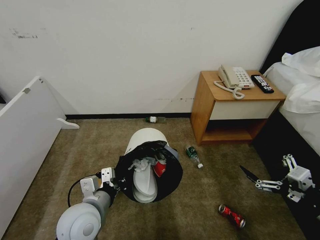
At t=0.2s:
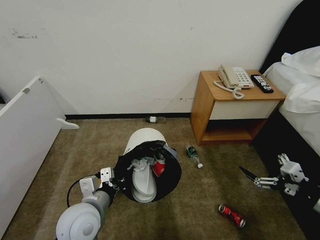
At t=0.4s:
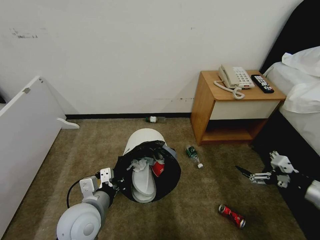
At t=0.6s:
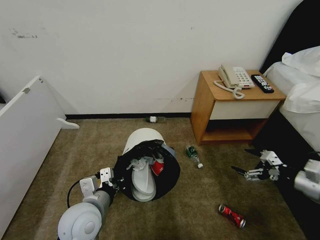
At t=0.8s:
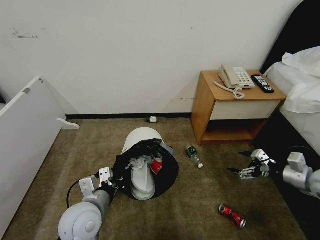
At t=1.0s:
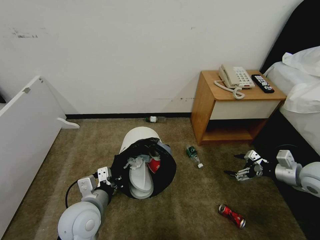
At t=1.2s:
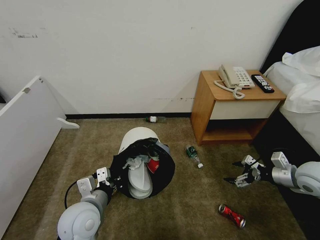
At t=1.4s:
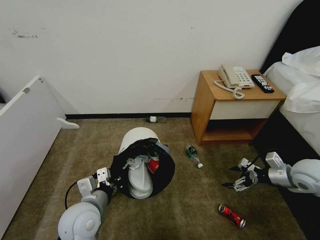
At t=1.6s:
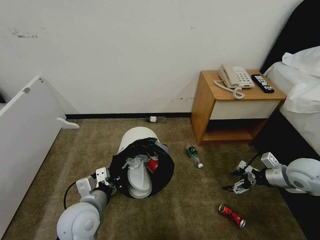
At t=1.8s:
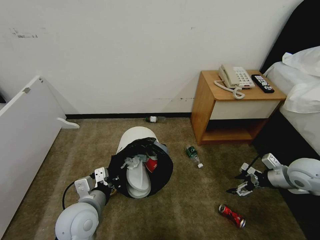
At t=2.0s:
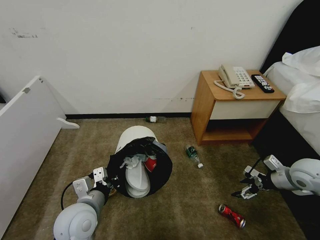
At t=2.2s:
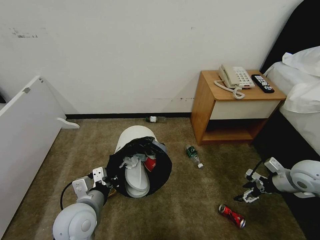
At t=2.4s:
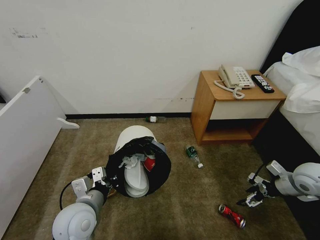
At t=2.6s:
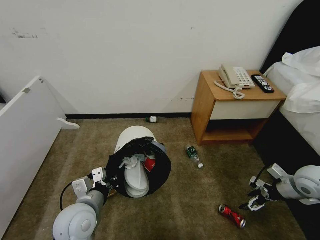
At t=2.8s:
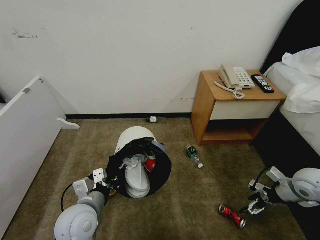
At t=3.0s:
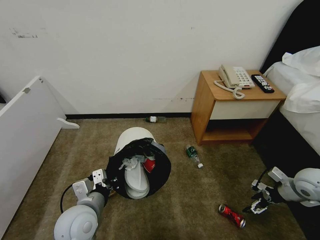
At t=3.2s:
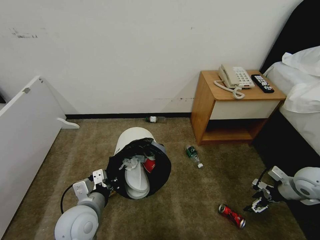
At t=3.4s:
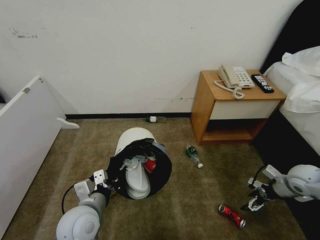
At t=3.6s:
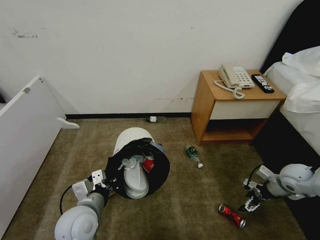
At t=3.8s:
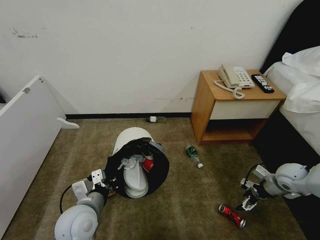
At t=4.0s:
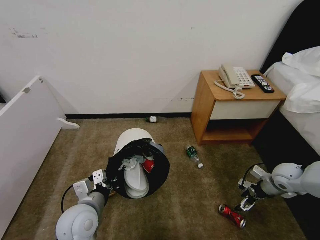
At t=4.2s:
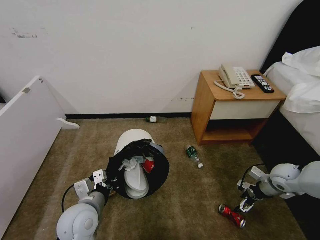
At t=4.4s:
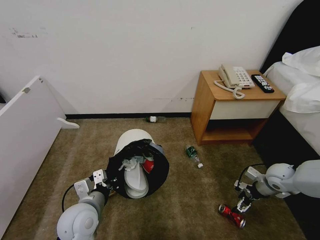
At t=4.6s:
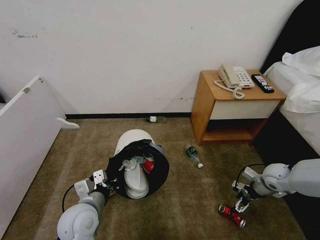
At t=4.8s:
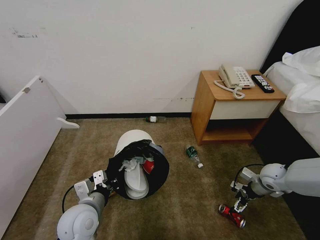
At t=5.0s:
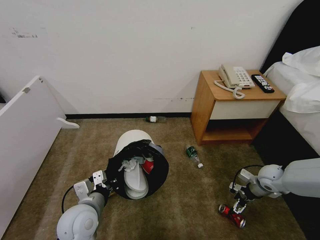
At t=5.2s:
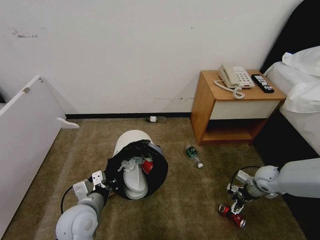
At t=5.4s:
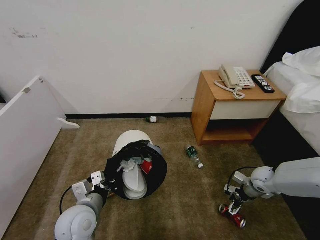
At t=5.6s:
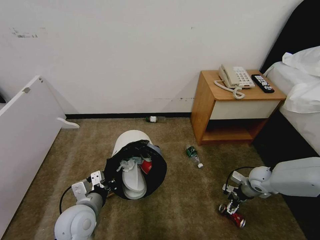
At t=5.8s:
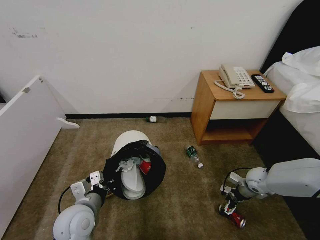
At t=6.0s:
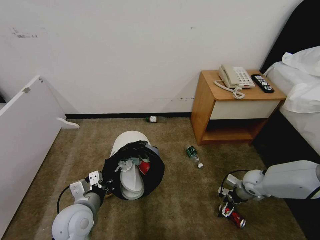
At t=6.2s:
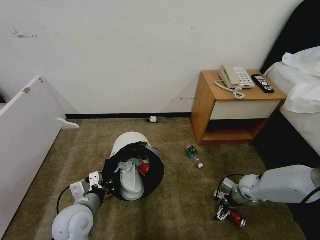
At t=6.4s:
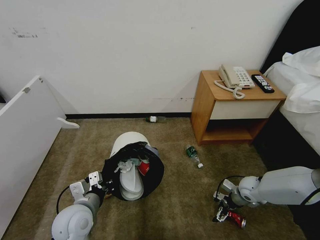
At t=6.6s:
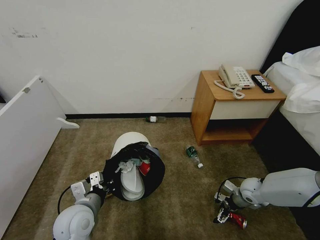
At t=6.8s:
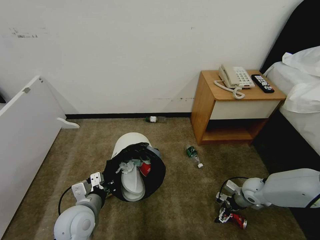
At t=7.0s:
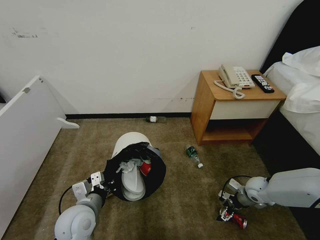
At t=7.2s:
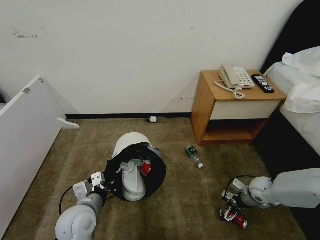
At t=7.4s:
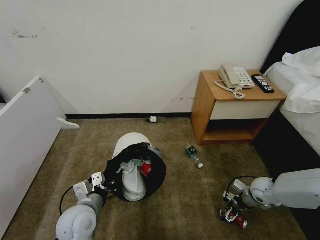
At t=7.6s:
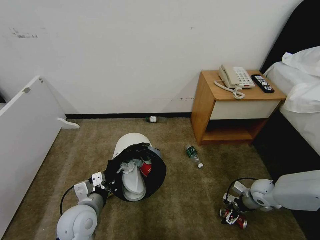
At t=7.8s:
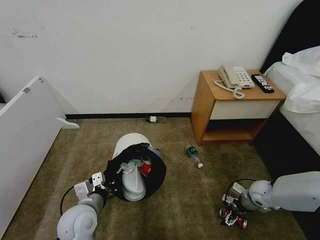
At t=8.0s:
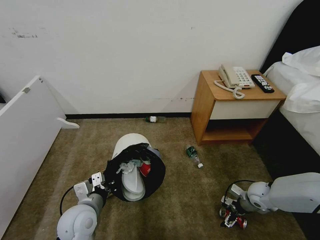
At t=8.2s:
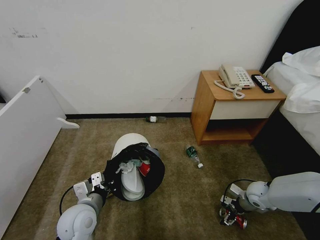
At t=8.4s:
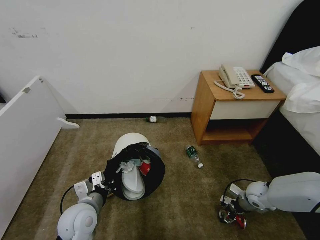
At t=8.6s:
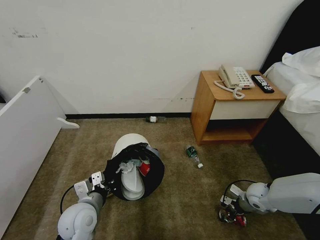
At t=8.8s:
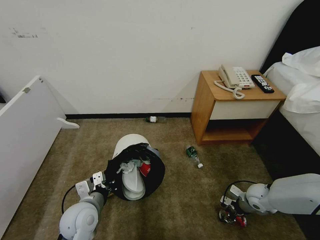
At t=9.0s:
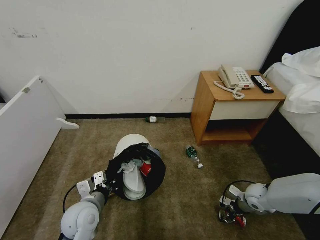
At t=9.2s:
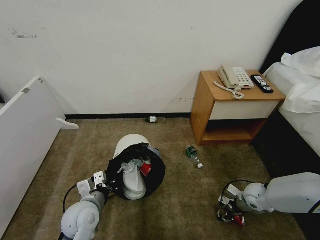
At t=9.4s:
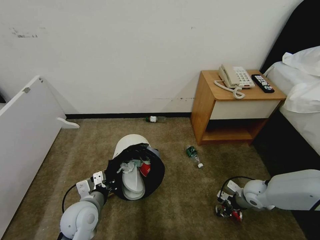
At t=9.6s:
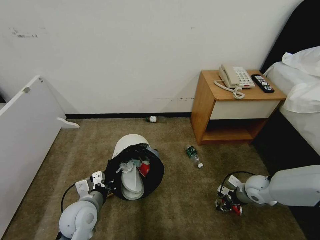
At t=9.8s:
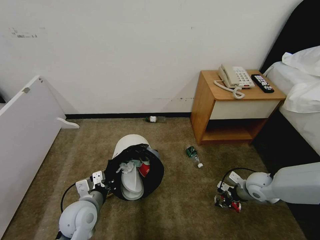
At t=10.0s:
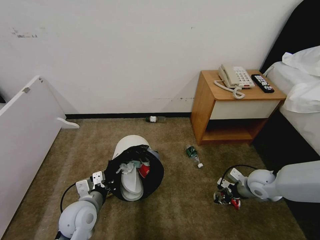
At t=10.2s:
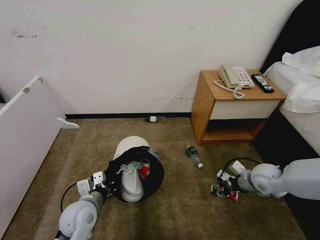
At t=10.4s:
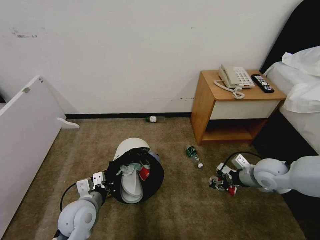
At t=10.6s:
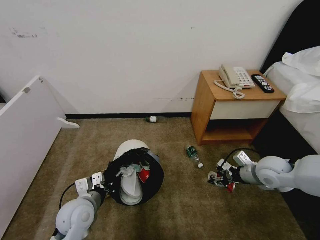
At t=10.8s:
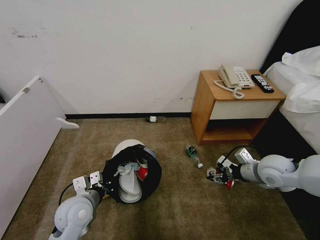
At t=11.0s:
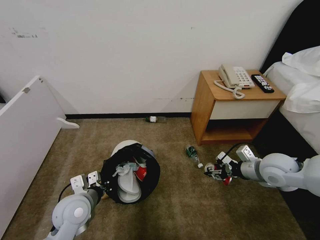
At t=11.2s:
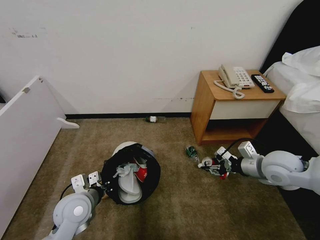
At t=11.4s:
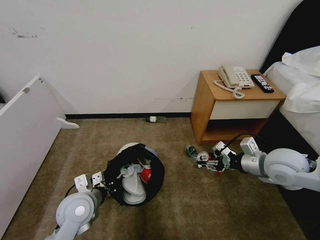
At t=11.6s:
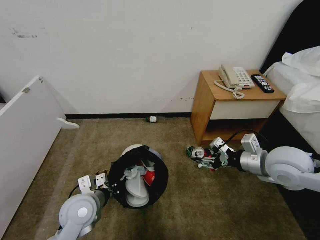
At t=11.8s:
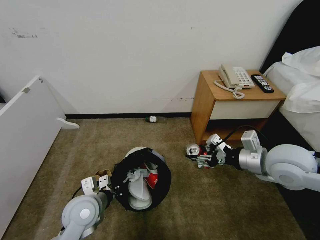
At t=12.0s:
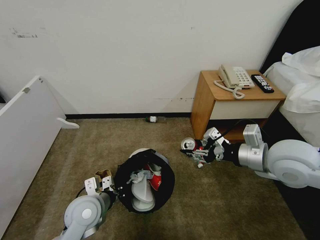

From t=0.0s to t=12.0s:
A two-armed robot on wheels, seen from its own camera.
Task of the whole recording: Pick up the trash bin and place the garbage on the floor into it.
From t=0.0s to t=1.6s: The right gripper shifts some 20 cm forward.
From t=1.6s to t=3.0s: The right gripper moves about 5 cm.
From t=3.0s to t=4.4s: The right gripper heads downward, covering about 5 cm.
From t=4.4s to t=6.0s: The right gripper moves downward and to the left, approximately 10 cm.
From t=6.0s to t=7.6s: The grippers stay close to where they were, moving slightly.
From t=7.6s to t=9.0s: The right gripper closes up.
From t=9.0s to t=10.4s: The right gripper heads upward, covering about 15 cm.
From t=10.4s to t=12.0s: The right gripper shifts roughly 20 cm upward and to the left.

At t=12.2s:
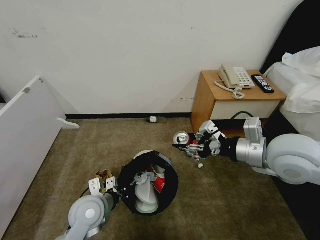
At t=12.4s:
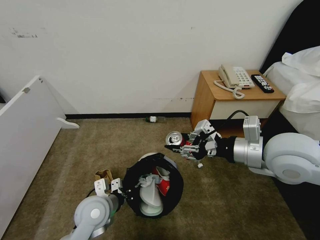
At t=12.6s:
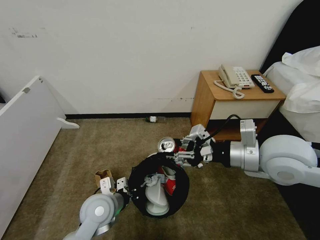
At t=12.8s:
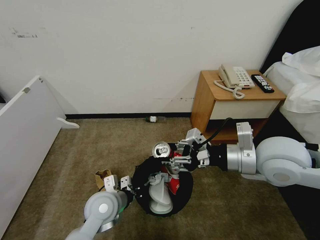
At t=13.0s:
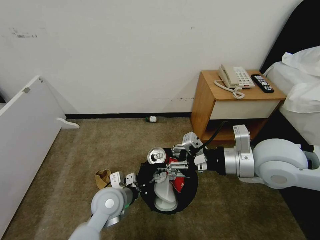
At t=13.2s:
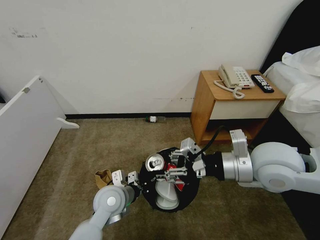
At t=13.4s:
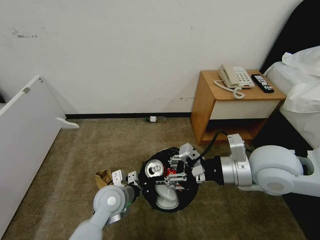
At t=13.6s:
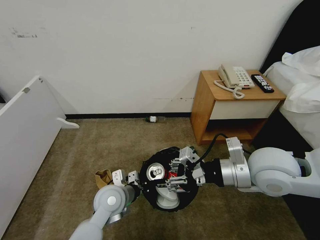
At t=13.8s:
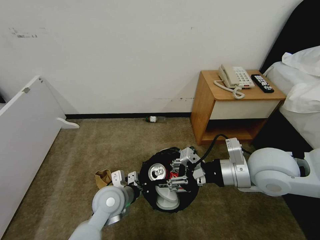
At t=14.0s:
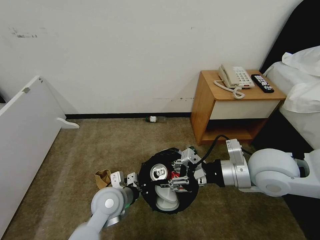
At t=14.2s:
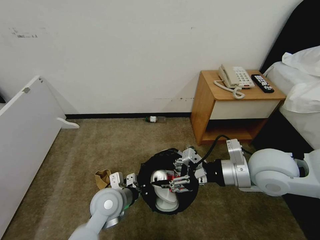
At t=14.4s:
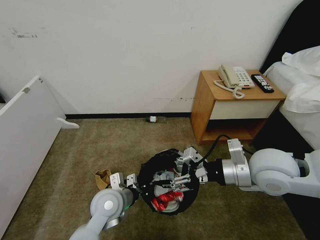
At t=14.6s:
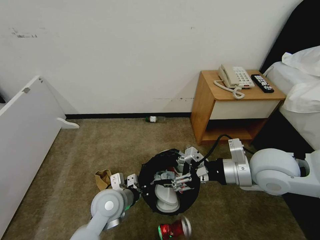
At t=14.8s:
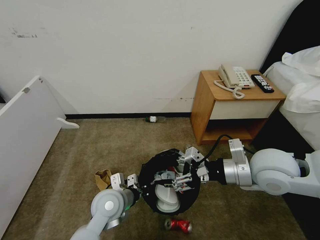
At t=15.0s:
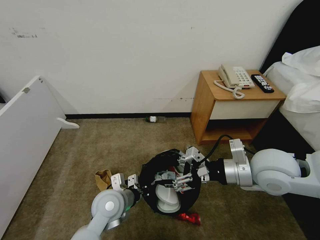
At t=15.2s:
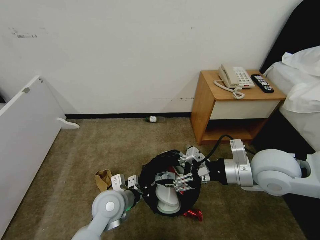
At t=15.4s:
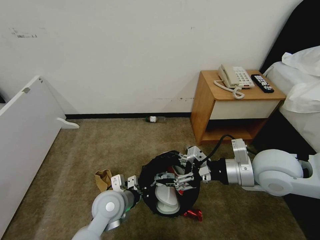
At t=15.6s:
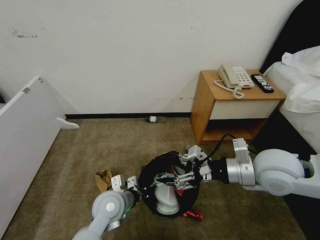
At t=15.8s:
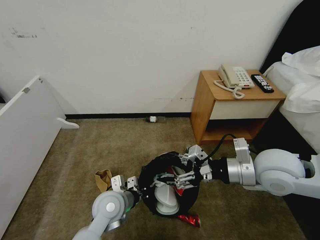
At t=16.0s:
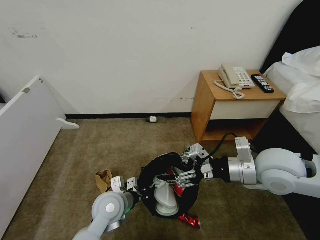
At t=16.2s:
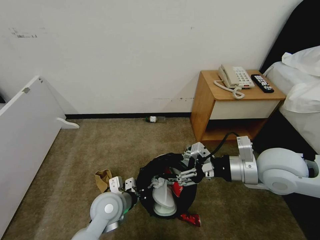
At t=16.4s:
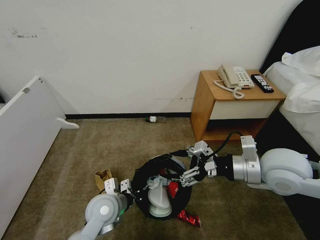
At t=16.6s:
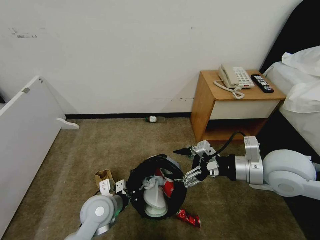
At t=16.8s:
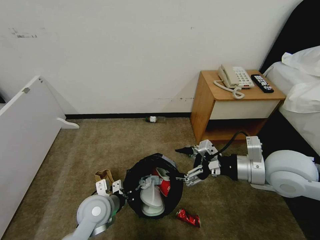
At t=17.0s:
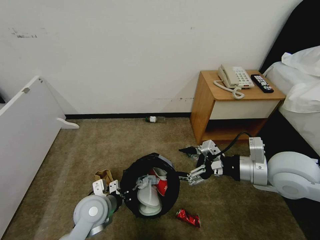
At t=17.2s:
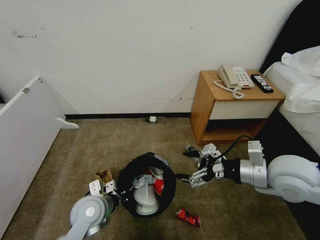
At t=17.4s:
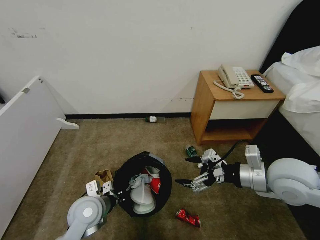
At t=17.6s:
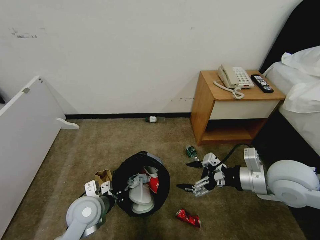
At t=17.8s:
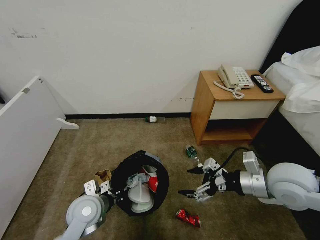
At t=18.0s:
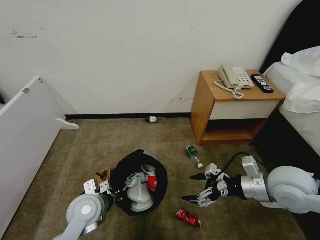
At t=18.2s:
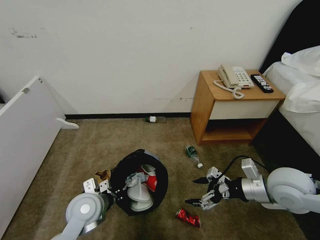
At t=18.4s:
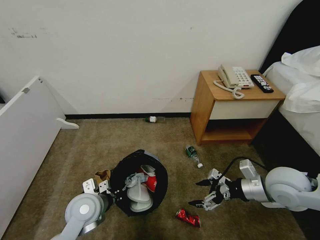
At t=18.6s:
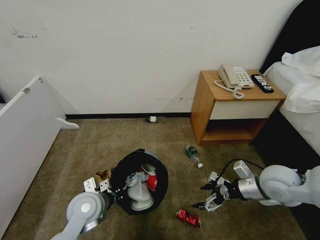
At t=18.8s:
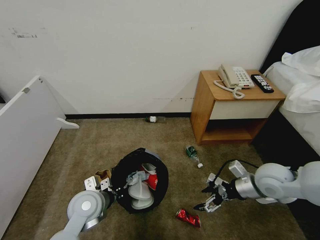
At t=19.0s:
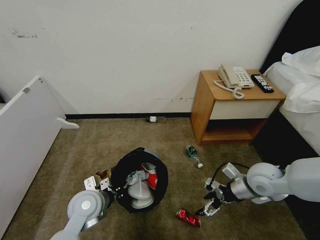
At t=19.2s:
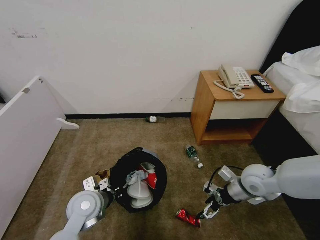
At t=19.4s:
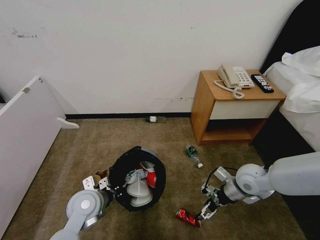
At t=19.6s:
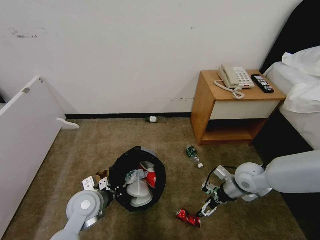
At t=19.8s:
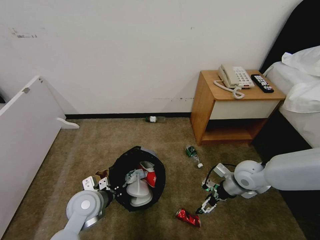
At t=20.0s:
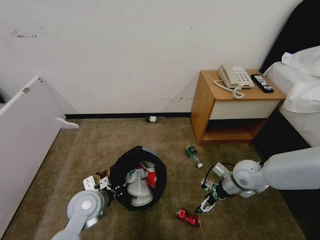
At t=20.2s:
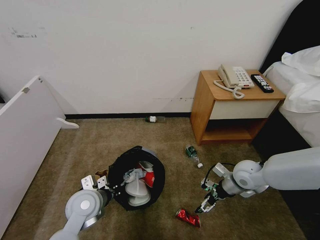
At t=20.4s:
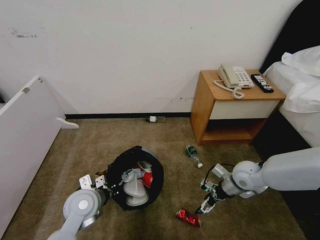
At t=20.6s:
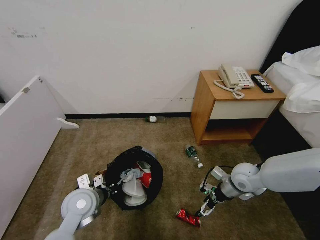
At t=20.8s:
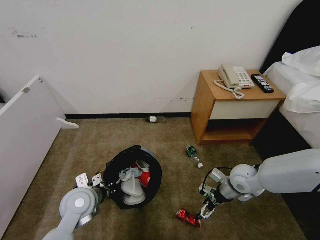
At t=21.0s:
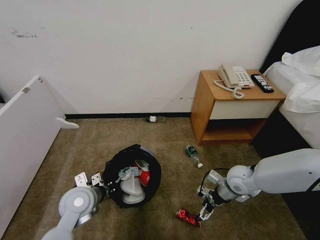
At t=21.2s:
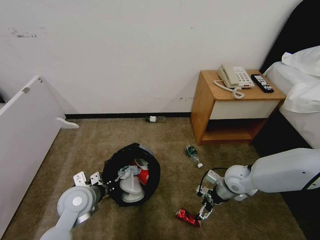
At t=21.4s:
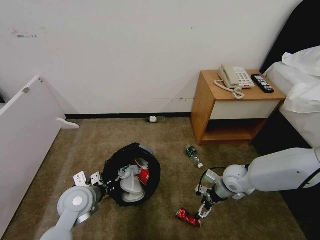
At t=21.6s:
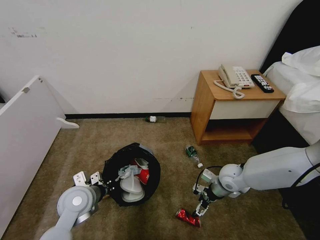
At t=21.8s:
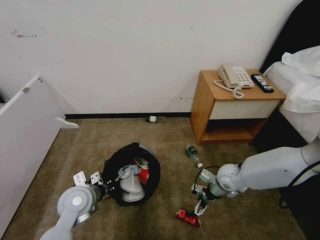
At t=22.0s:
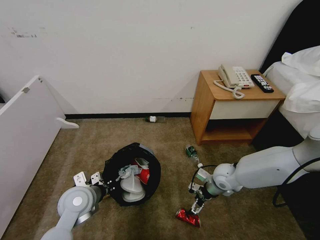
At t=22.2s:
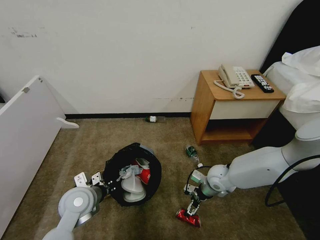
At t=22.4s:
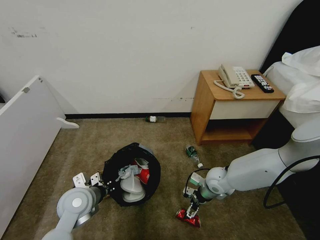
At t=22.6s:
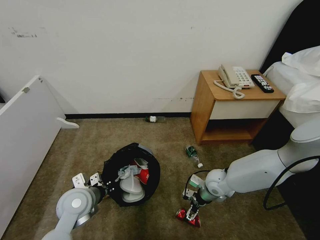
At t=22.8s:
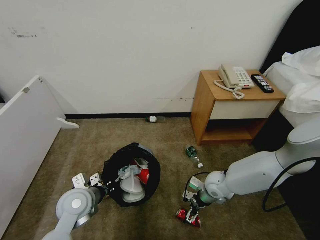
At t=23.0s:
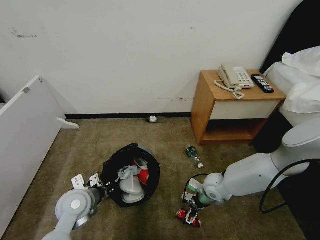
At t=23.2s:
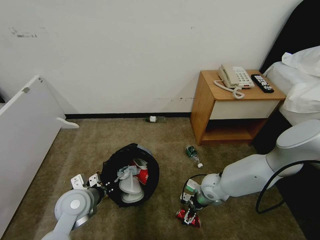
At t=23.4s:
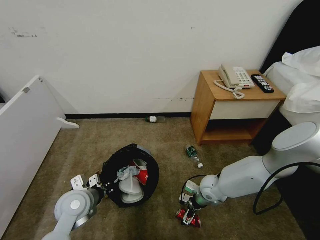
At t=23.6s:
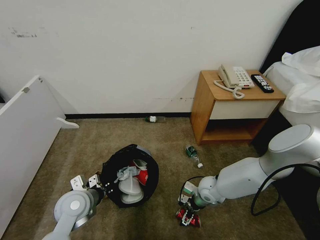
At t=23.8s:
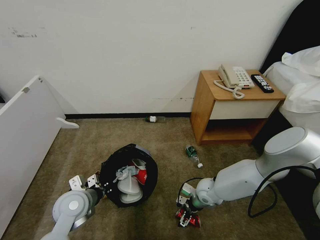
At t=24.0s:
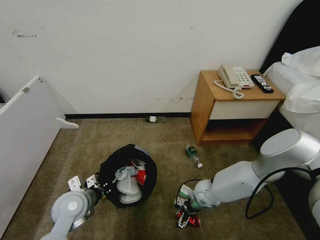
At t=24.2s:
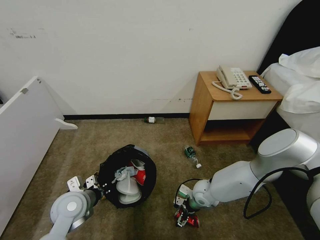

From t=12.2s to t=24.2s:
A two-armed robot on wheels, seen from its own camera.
Task of the whole recording: Pick up the trash bin and place the garbage on the floor into it.
From t=12.2s to t=13.8s: The left gripper is displaced to the right by roughly 5 cm.
From t=13.8s to t=16.6s: There are only small adjustments of the grippers.
From t=16.6s to t=18.2s: The right gripper is displaced downward by about 5 cm.
From t=18.2s to t=19.8s: The right gripper moves downward and forward, approximately 15 cm.
From t=19.8s to t=21.2s: The grippers make only small movements.
From t=21.2s to t=22.6s: The right gripper is displaced to the left by some 5 cm.
From t=22.6s to t=24.2s: The right gripper moves downward, some 5 cm.
